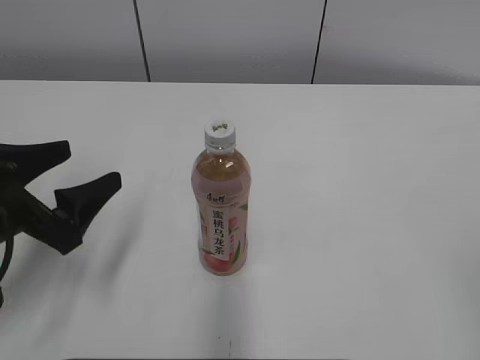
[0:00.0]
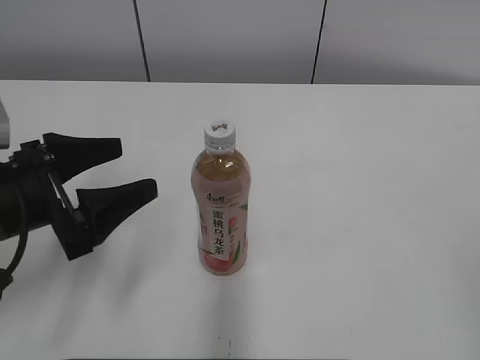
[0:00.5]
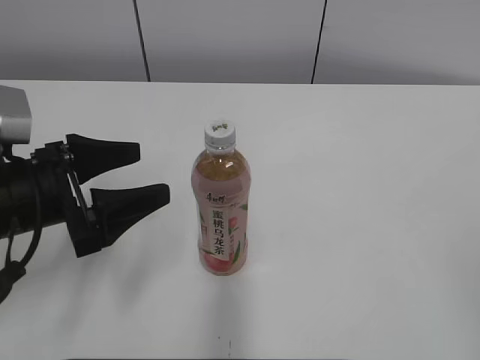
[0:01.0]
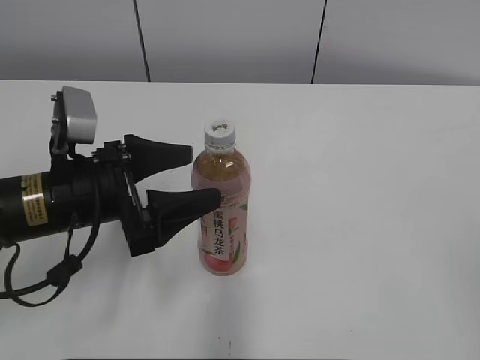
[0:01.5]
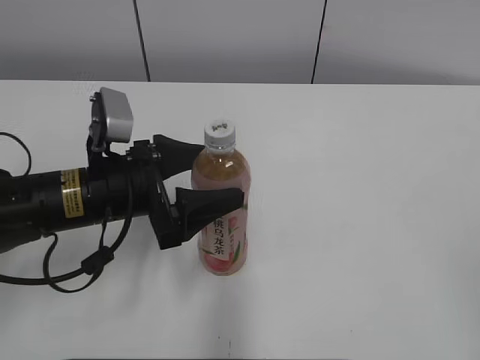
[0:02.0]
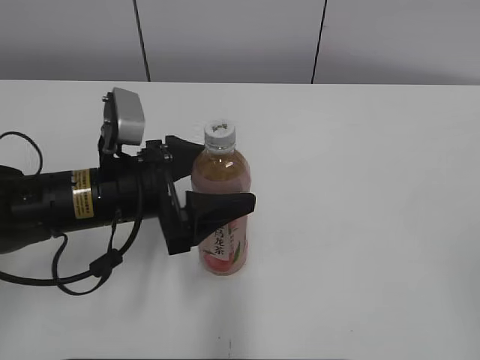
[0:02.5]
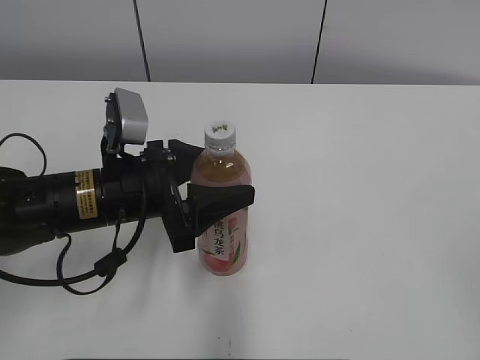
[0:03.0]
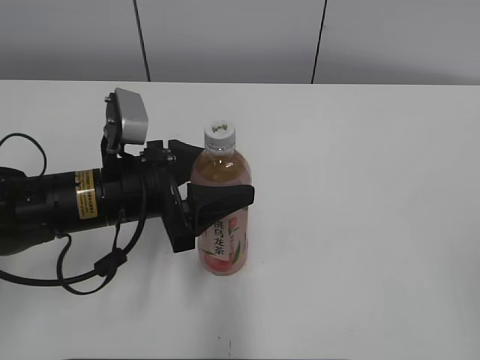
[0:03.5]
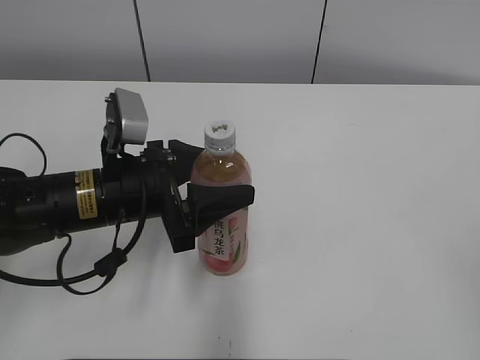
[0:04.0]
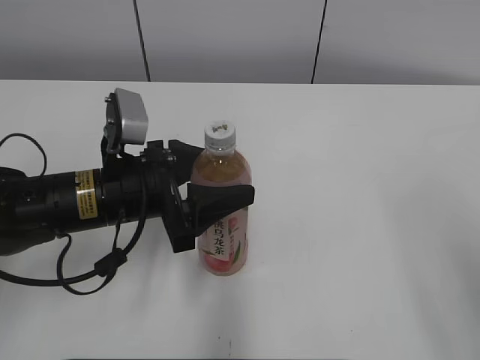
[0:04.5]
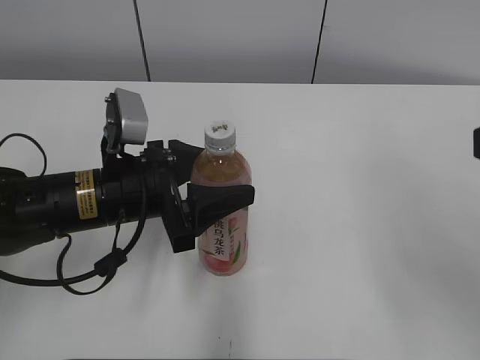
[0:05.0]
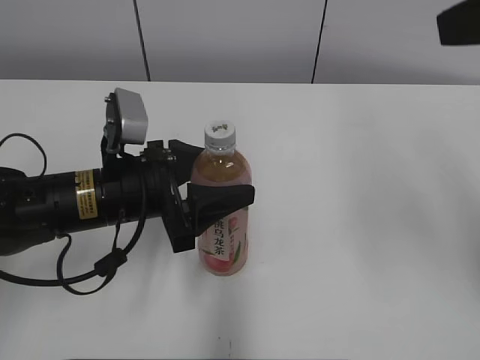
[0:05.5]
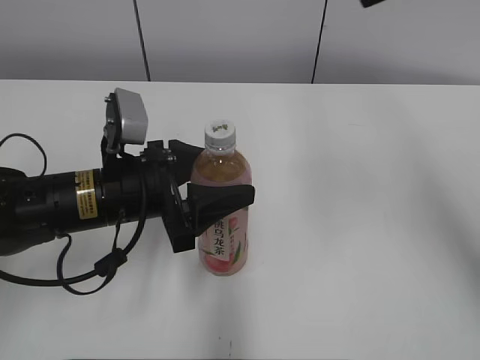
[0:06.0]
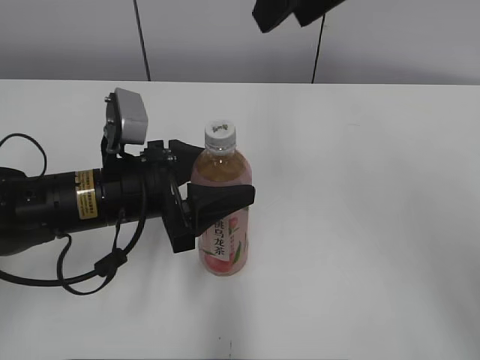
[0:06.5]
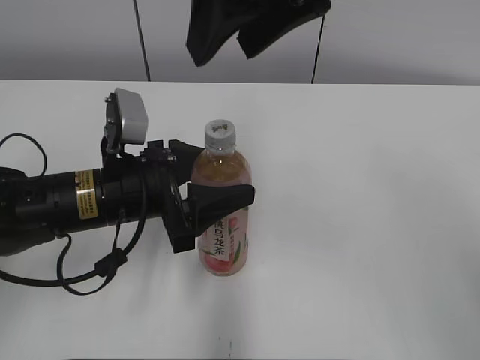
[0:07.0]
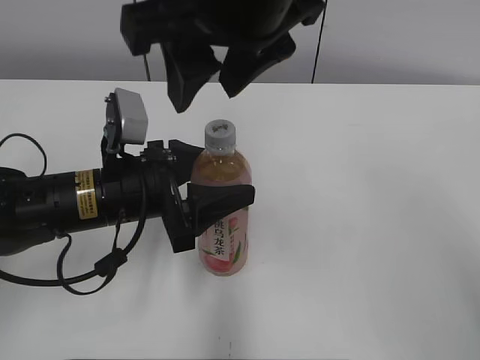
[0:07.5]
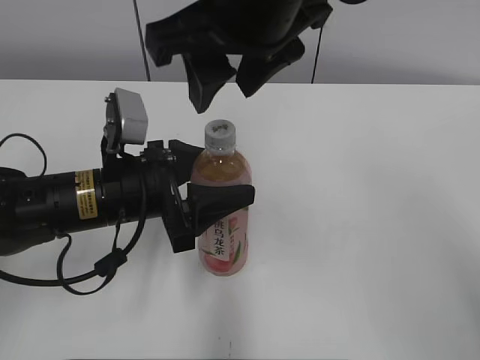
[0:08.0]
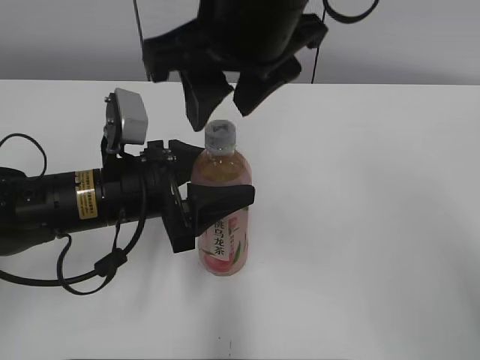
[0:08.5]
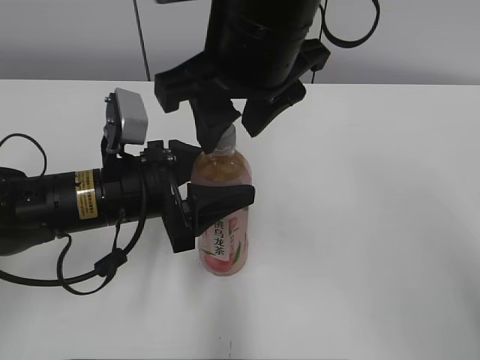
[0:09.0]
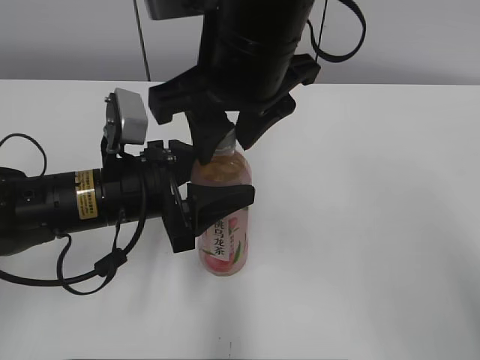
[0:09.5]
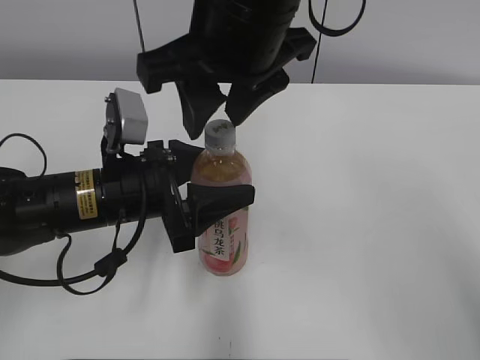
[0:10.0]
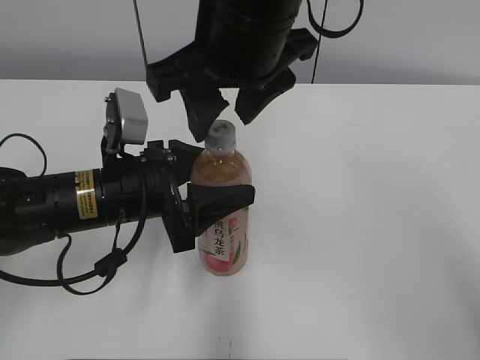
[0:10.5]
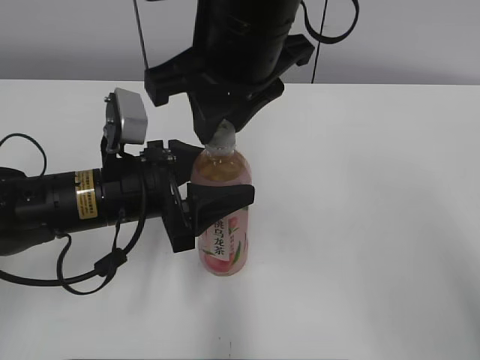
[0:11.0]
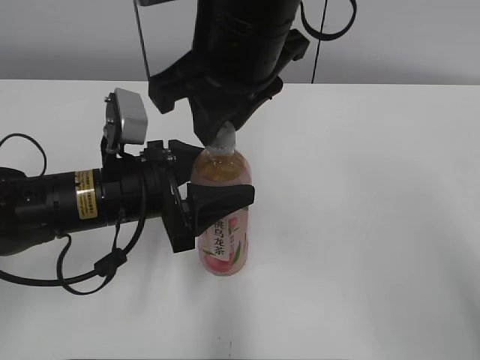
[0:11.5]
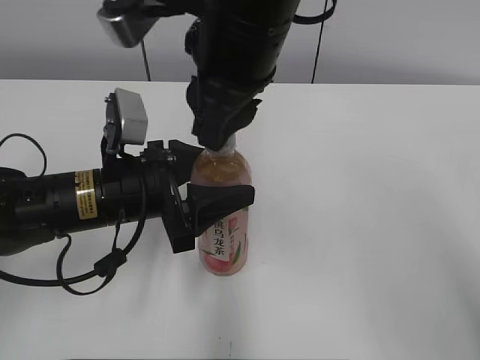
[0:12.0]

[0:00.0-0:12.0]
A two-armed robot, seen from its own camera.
Step, 0:00.0 to 0:03.0: Grab the Peach Oolong Tea with the left hand.
0:00.0 to 0:02.0: The left gripper travels to the right and forward by roughly 10 cm.
0:02.0 to 0:04.0: The left gripper closes up.
0:04.0 to 0:06.0: The right gripper heads forward, upward and to the left, covering about 35 cm, and closes up.
0:06.0 to 0:08.0: The right gripper heads to the left and downward, covering approximately 20 cm.
0:08.0 to 0:10.0: The grippers move only a little.
0:10.0 to 0:12.0: The right gripper closes.

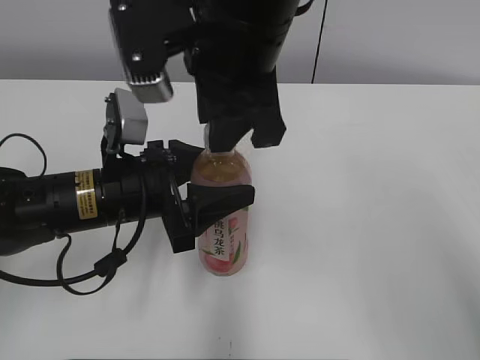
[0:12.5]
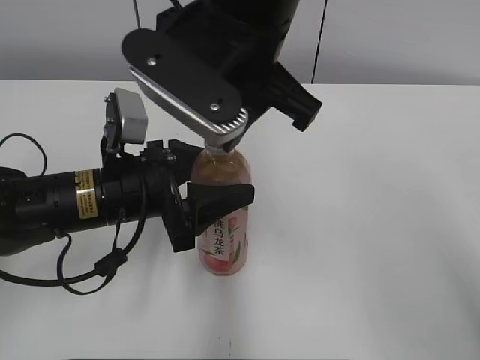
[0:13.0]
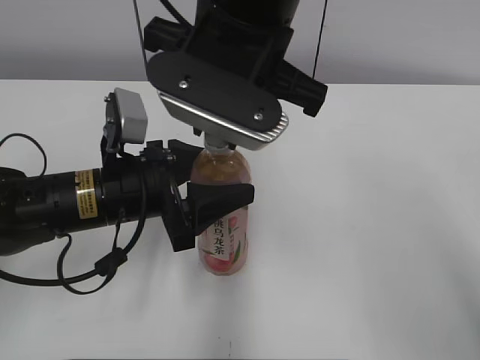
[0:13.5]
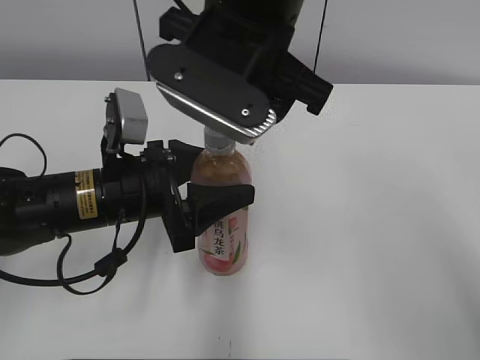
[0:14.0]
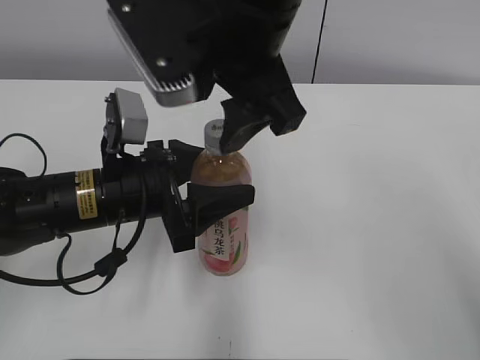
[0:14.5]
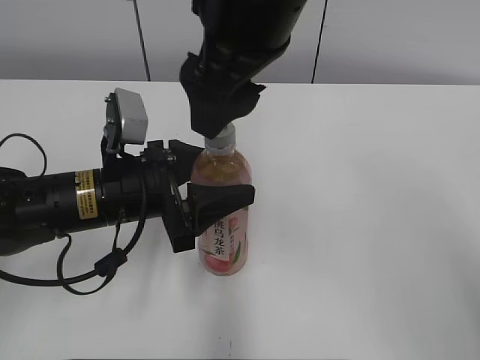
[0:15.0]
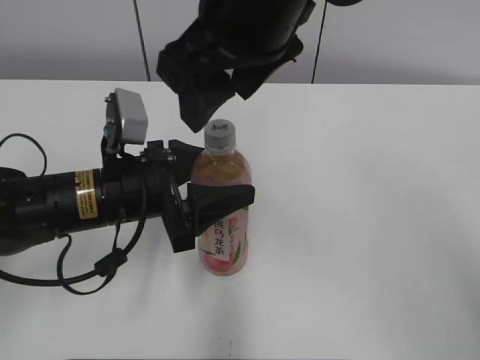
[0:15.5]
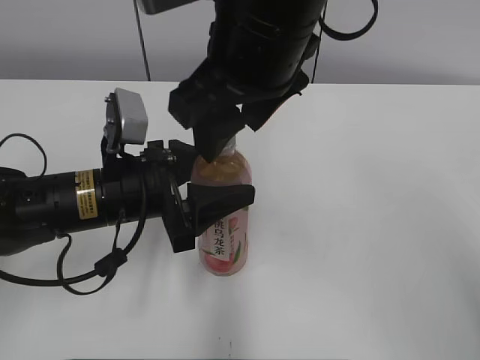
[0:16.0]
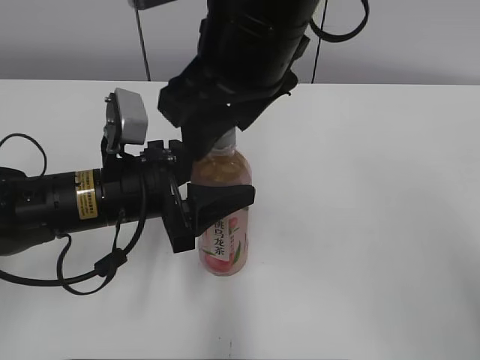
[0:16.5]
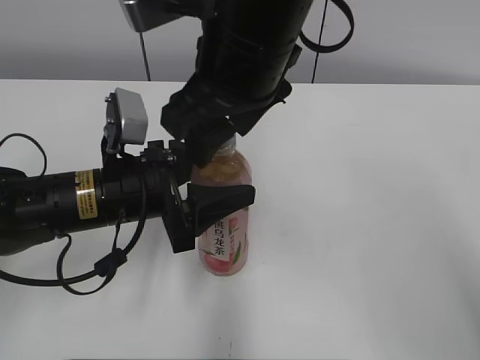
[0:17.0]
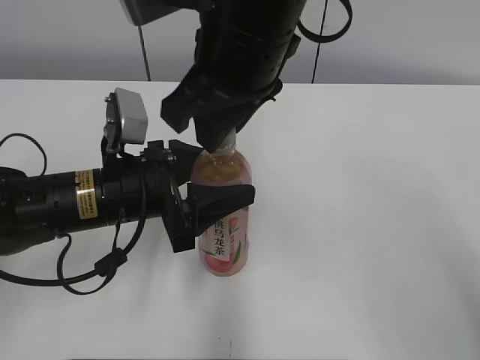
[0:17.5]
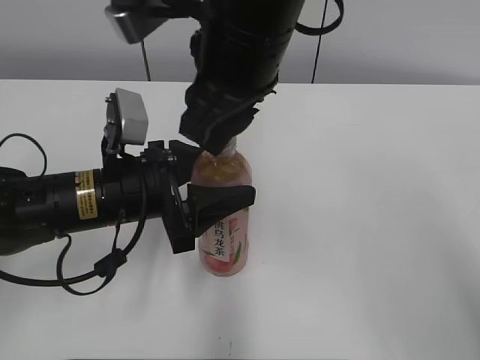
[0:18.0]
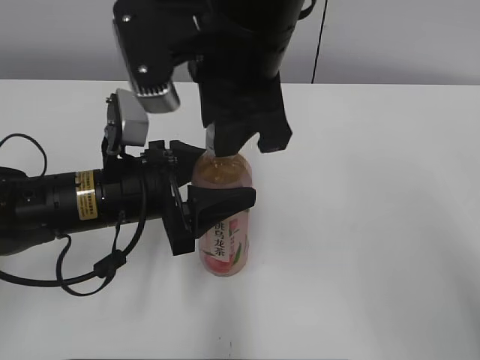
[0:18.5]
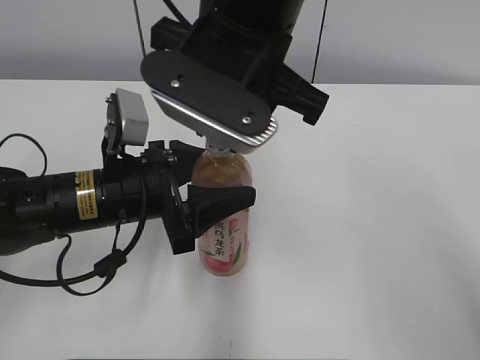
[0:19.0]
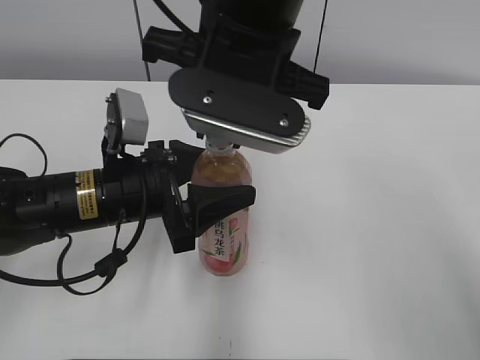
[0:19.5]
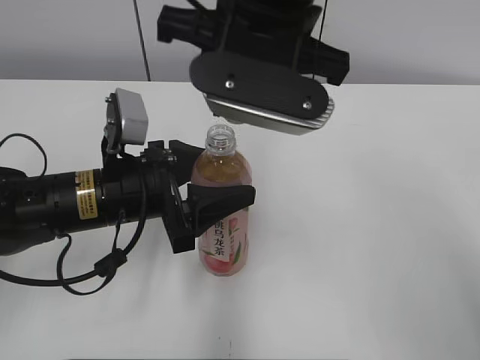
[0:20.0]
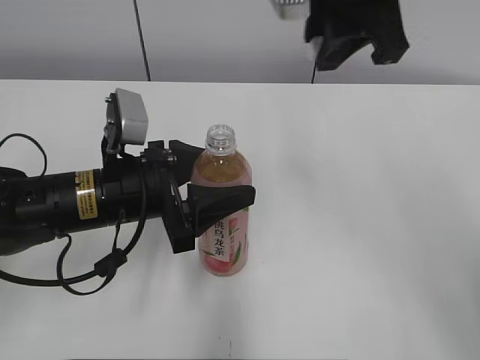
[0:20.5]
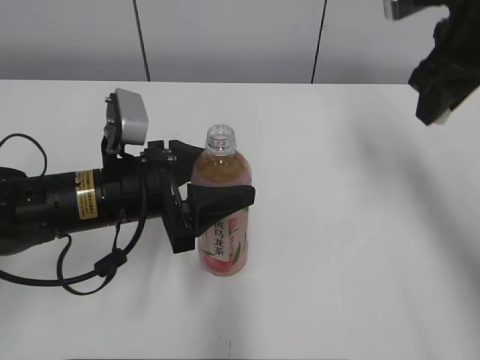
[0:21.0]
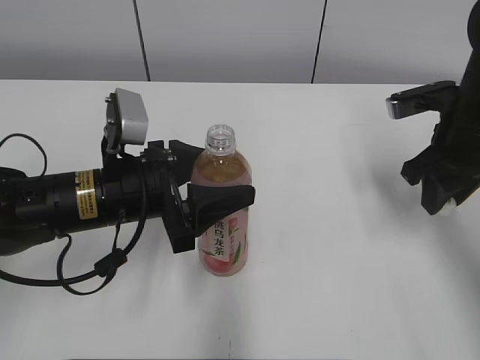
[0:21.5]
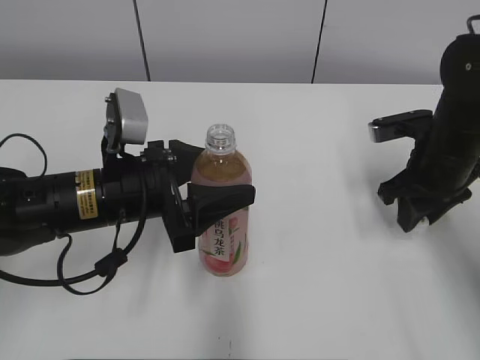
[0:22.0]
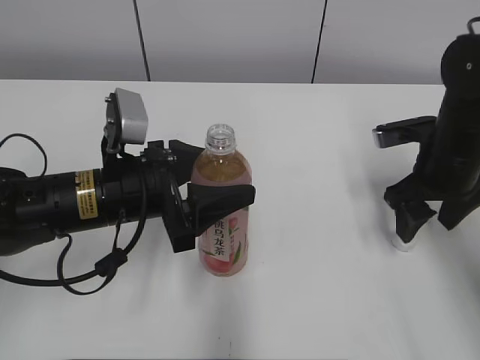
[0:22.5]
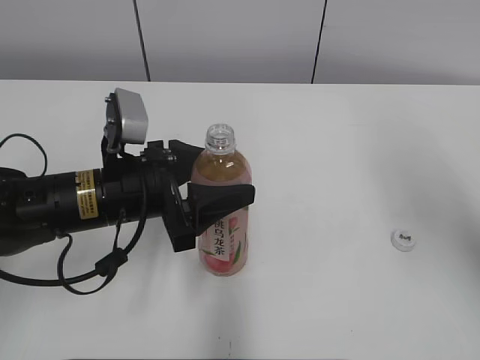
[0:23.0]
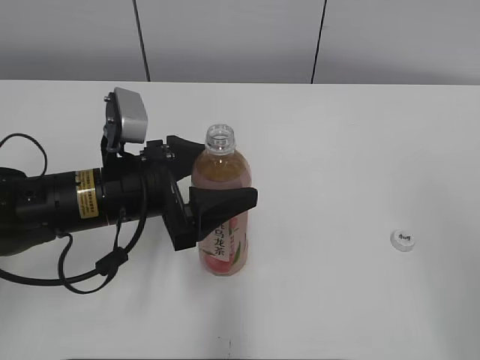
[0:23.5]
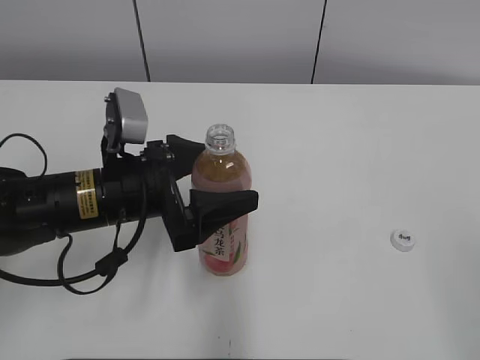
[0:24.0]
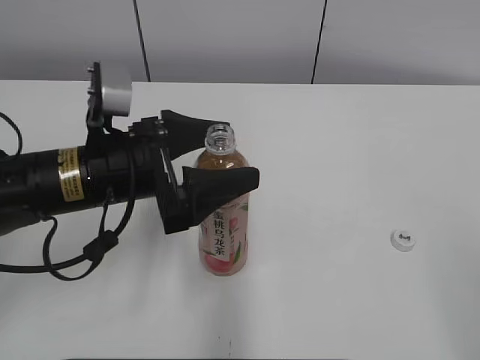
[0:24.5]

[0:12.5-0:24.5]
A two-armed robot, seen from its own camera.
Step, 0:20.0 to 0:22.0: Place the bottle cap on the right.
0:12.5 to 0:14.5: The right gripper opens.
0:16.5 to 0:18.5: The right gripper closes.
0:18.5 to 0:20.5: The right gripper is displaced to the right by roughly 10 cm.
0:20.5 to 0:22.5: The right gripper moves downward and to the right, some 25 cm, and opens up.
0:22.5 to 0:24.5: The right gripper is displaced backward and upward by some 35 cm. The left gripper opens up.

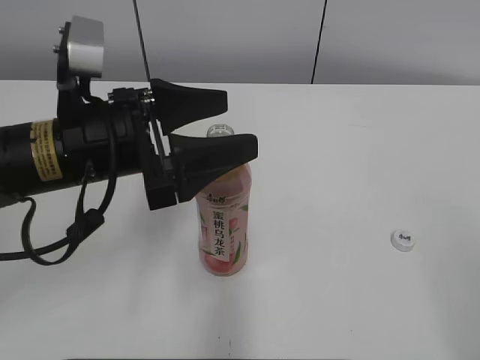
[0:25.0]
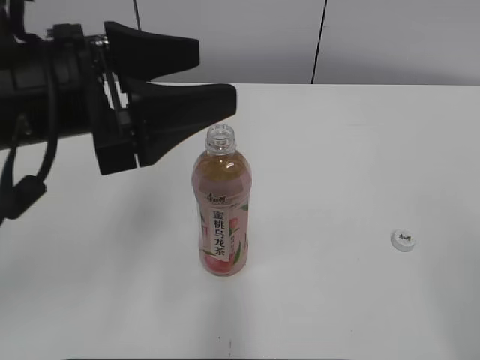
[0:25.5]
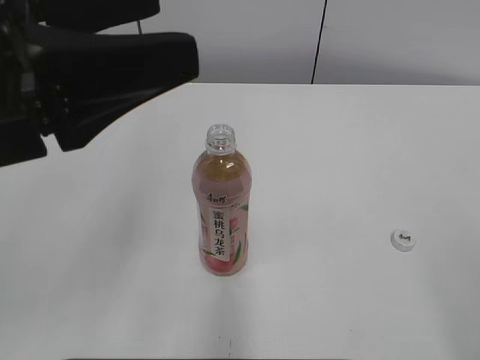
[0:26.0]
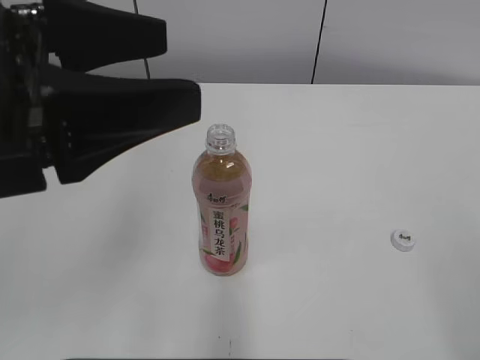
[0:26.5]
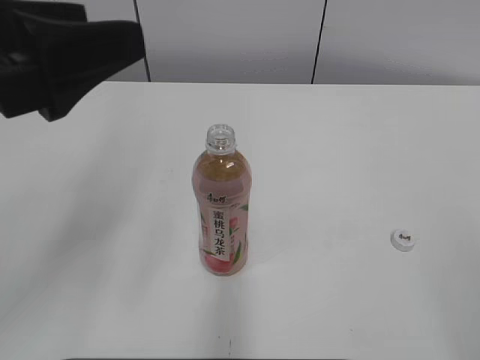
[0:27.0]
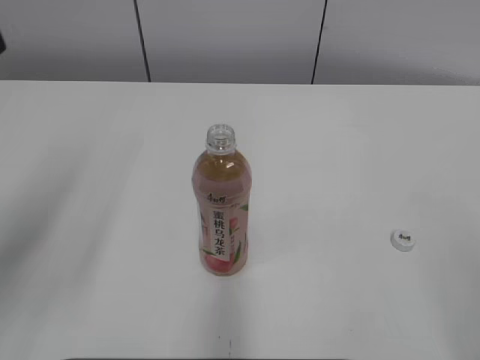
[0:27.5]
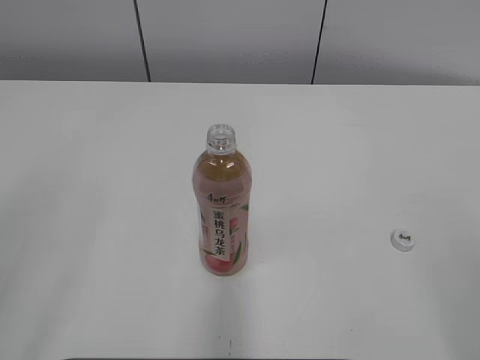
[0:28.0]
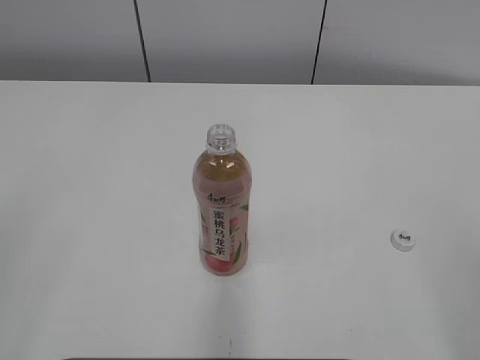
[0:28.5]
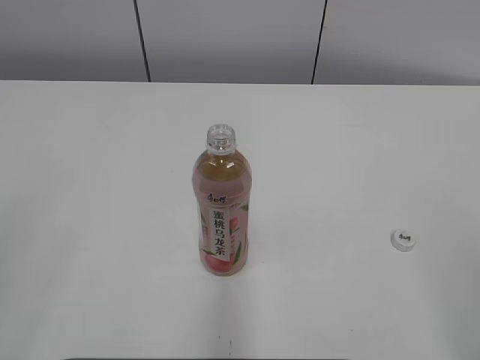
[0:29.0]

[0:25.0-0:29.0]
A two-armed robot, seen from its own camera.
0:25.0 to 0:27.0: The left gripper is displaced upward, backward and to the left by roughly 15 cm.
0:27.0 to 0:29.0: The left gripper travels backward and to the left by some 20 cm.
